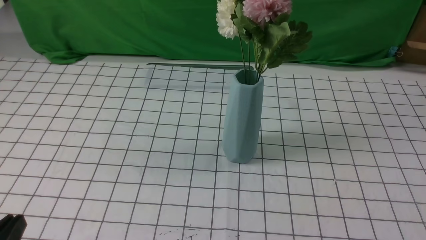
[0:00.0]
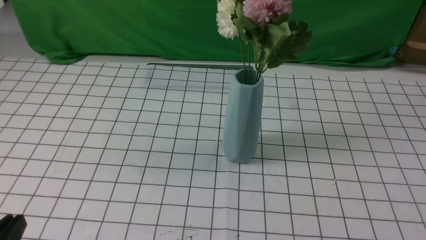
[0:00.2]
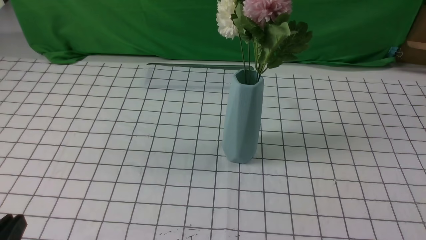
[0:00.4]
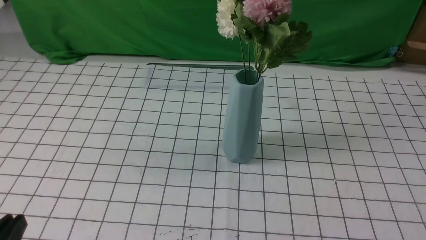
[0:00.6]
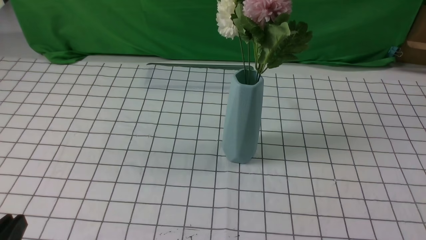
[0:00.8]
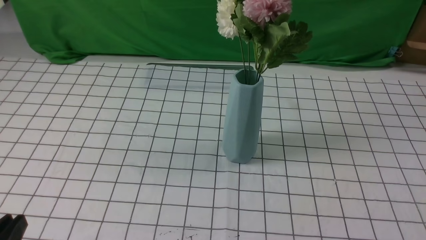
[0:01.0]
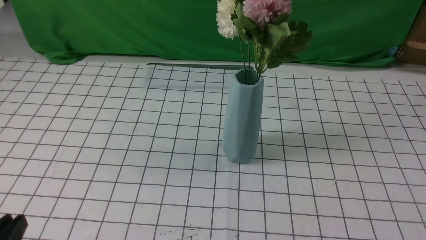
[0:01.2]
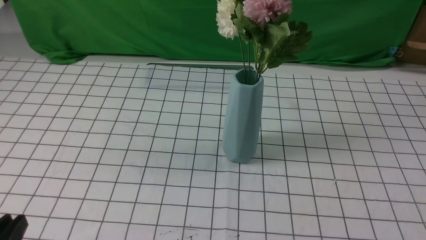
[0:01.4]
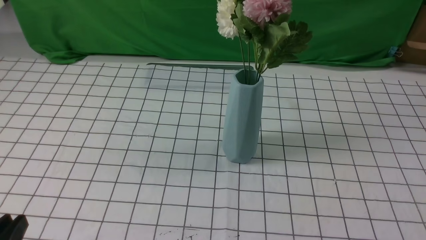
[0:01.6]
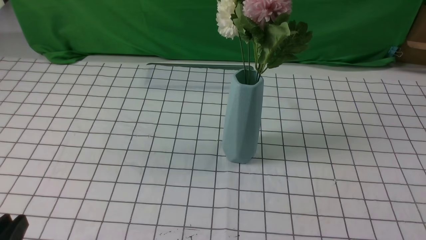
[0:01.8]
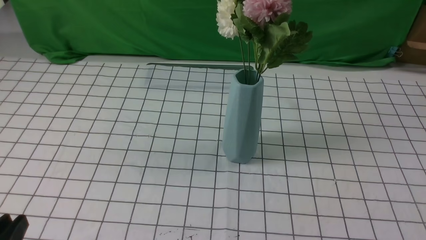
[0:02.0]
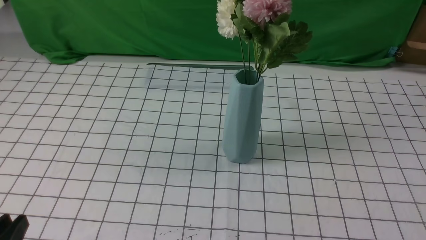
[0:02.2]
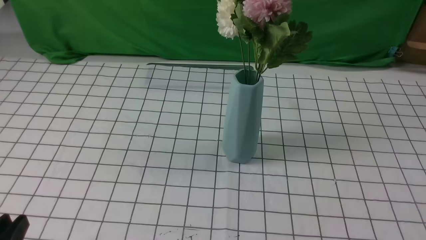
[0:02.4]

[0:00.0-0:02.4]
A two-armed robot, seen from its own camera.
Task of the whole recording: insert the flowers into the vase on the table with the white tablecloth.
0:01.2 to 0:02.4: Both grippers stay about where they are.
